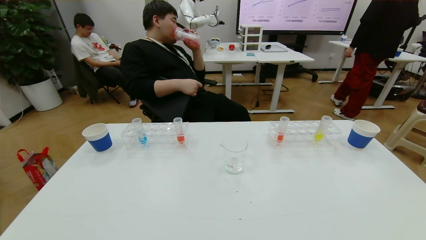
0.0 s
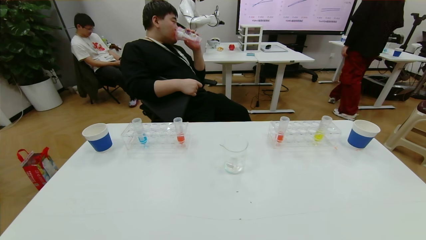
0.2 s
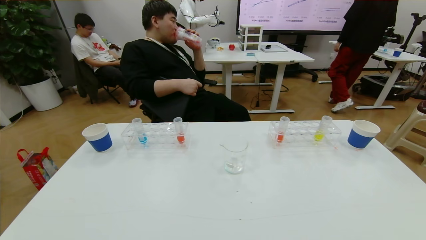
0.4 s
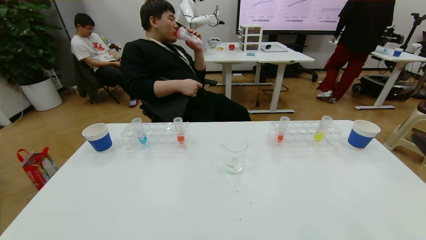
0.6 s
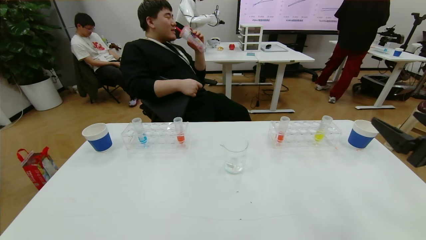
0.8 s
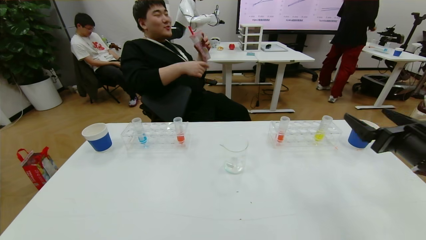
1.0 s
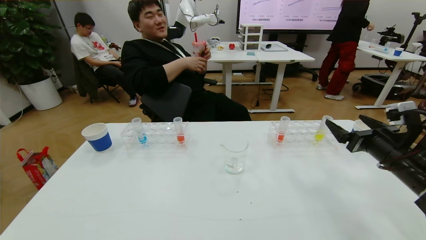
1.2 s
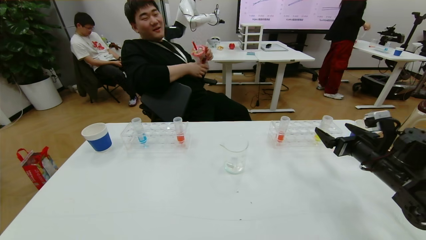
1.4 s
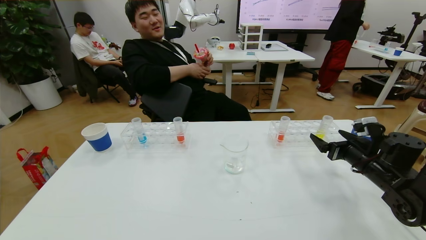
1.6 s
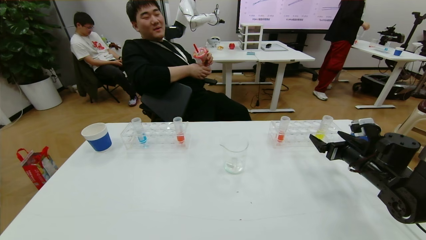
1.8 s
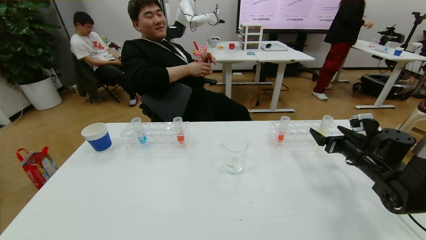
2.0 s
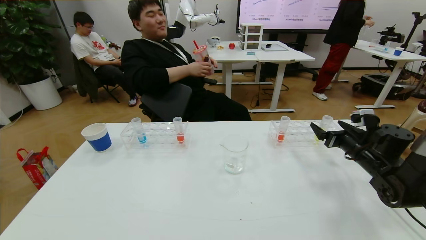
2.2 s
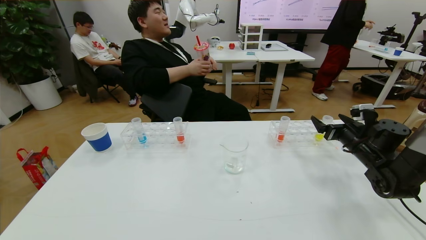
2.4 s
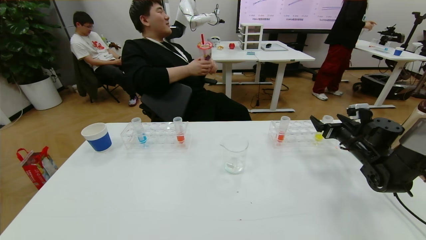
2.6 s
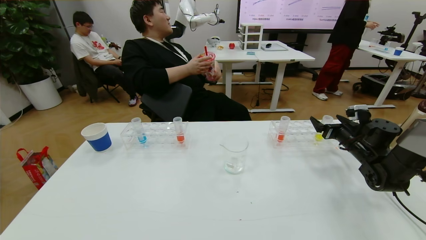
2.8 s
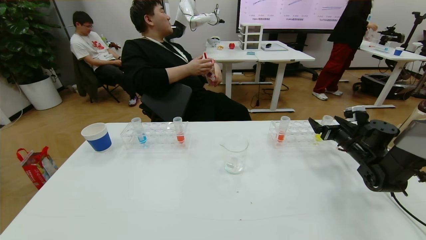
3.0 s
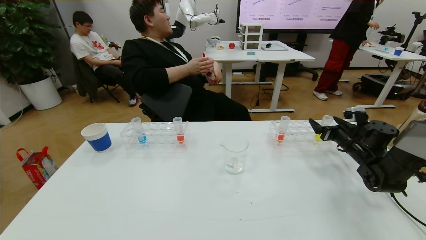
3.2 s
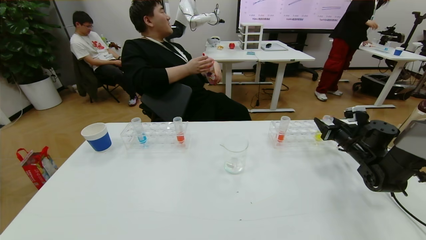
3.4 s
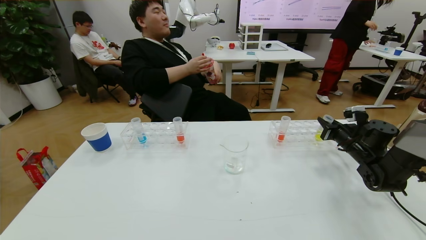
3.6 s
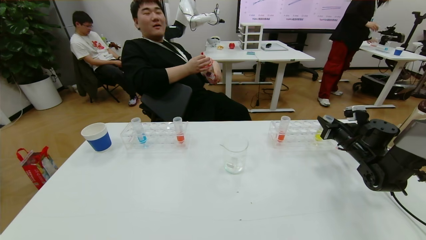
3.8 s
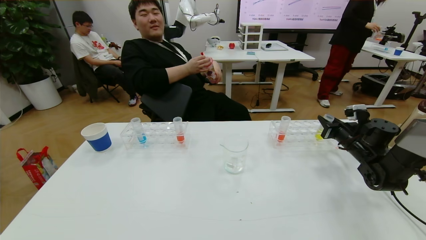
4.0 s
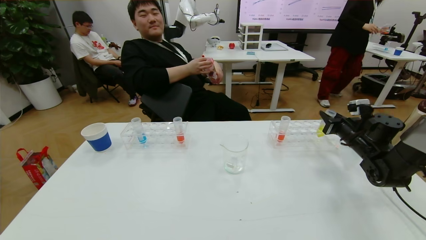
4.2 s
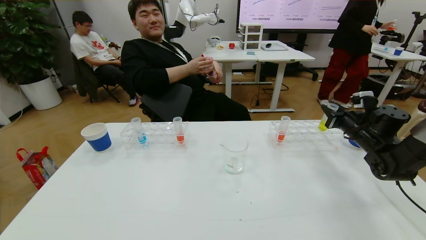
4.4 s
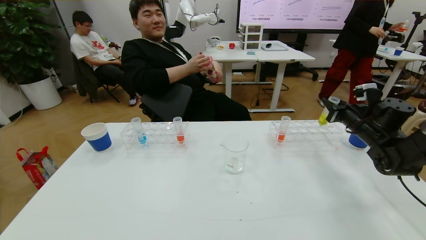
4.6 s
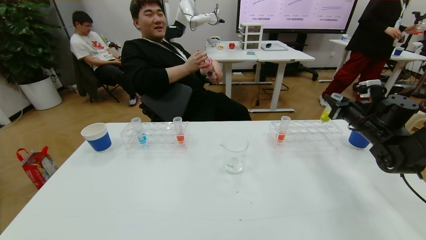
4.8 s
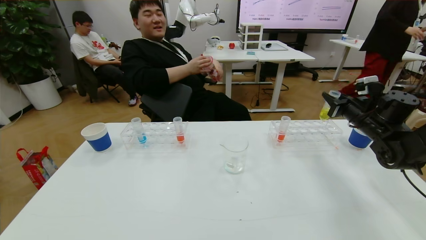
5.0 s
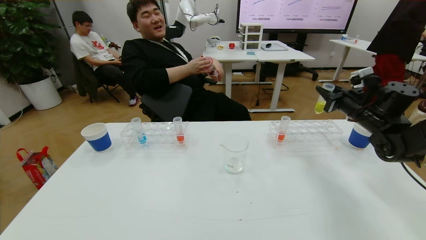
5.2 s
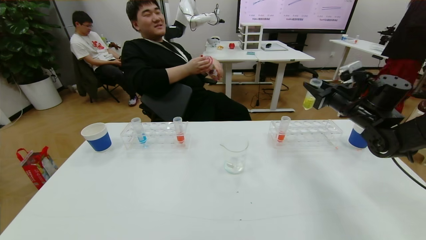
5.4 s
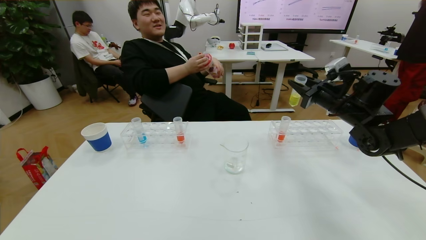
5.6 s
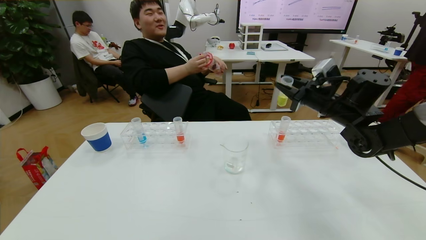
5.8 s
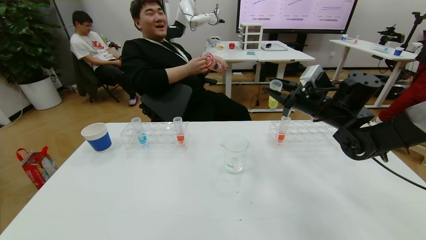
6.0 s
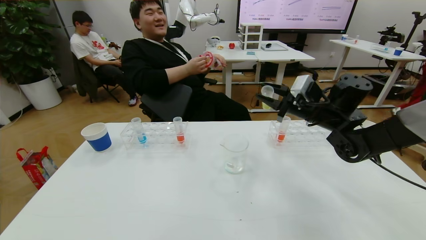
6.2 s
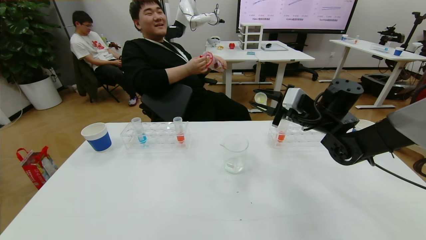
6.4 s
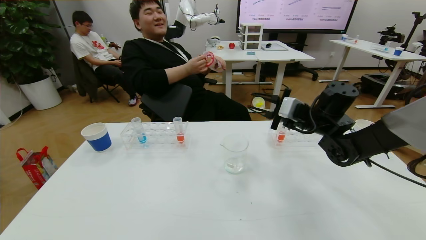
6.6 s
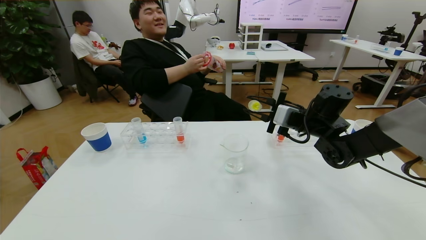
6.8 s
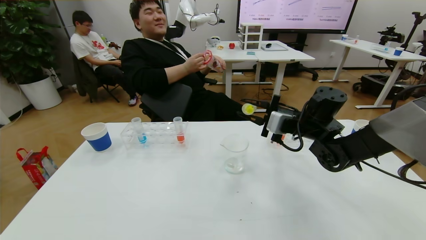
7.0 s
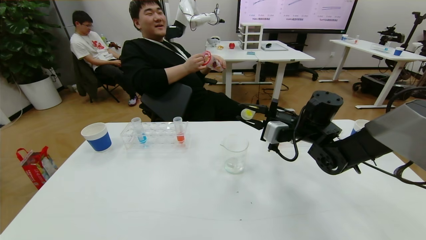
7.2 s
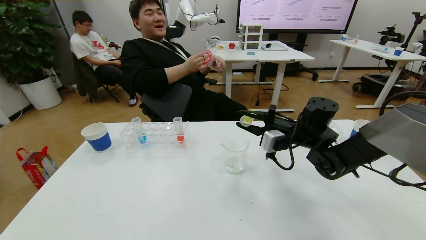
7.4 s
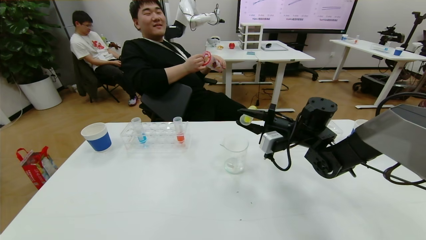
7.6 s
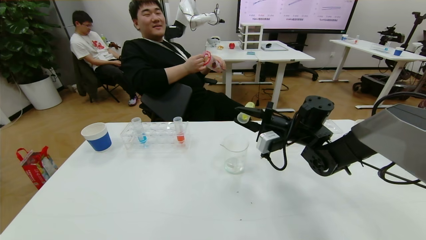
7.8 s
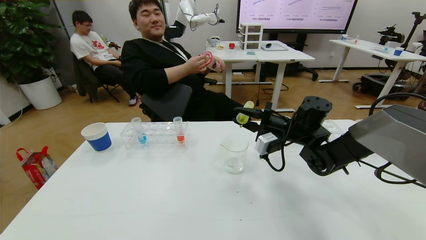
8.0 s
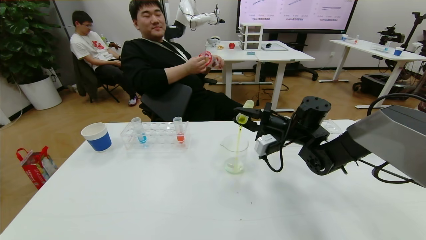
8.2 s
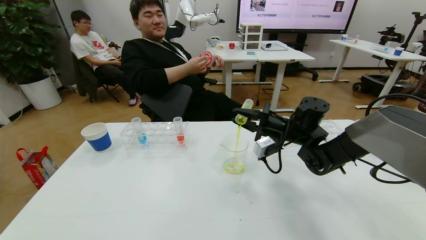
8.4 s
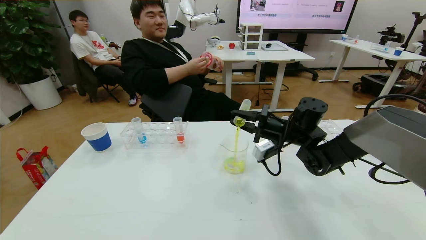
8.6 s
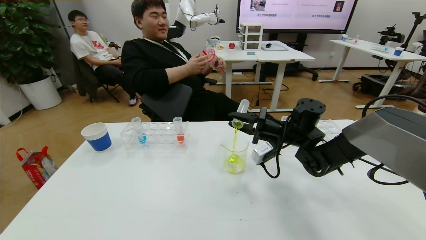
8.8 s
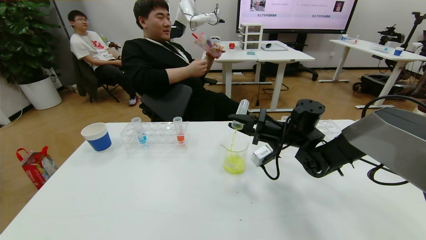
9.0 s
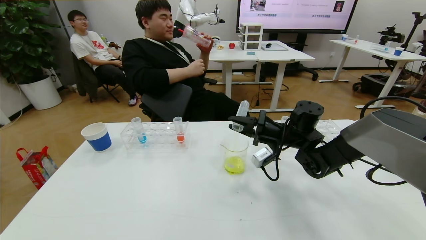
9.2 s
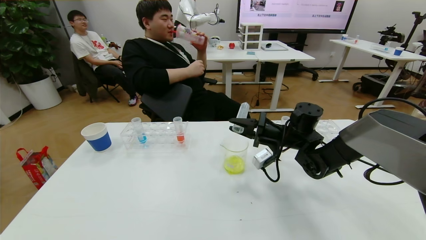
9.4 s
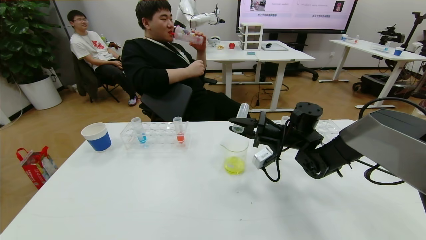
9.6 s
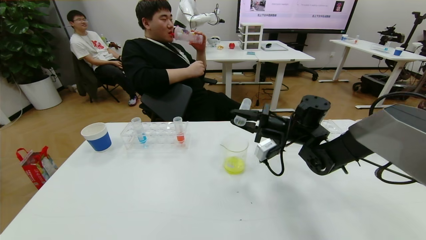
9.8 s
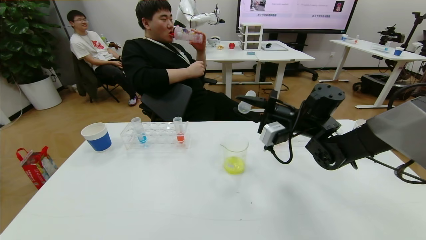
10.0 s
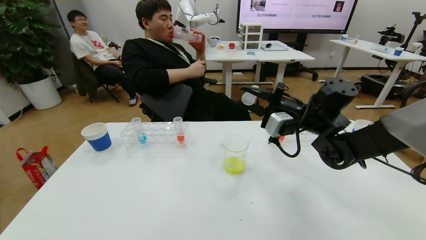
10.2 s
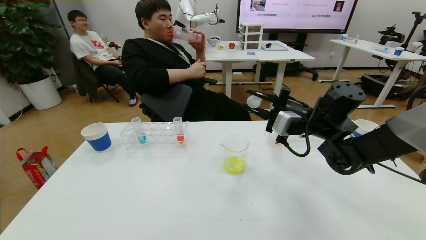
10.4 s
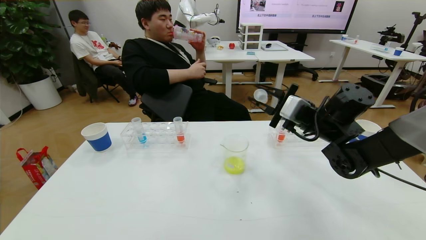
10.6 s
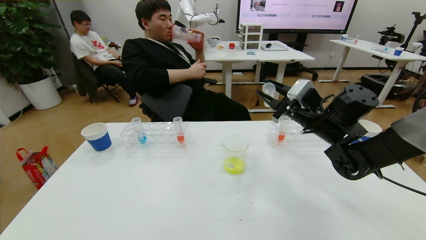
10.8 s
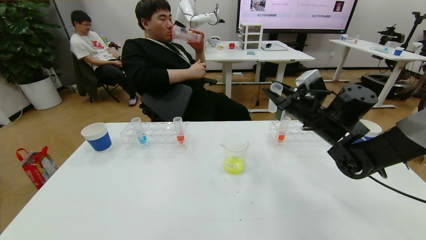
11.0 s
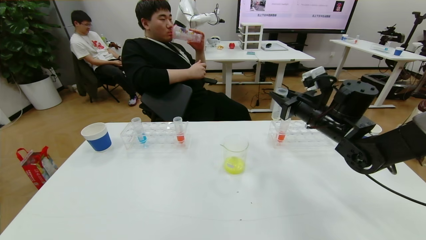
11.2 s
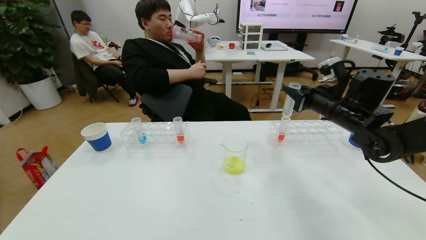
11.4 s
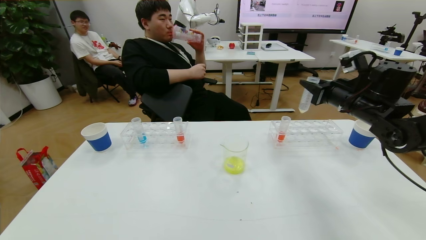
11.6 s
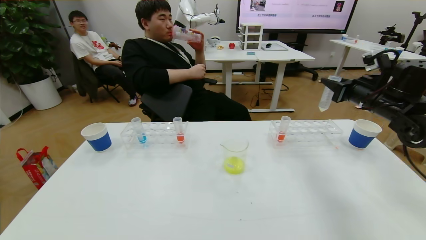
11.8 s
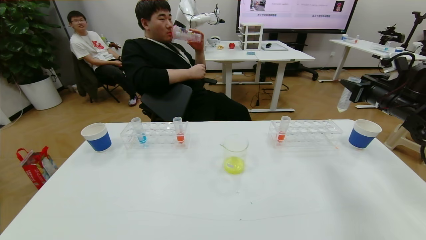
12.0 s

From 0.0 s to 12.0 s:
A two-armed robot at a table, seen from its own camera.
Task of the whole recording: pick up the test tube with yellow pigment and the test tube with blue pigment by grippers and pour them into the beaker.
From 0.0 s to 1.6 s: The right gripper shifts some 35 cm forward.
From 1.6 s to 3.0 s: The right gripper moves forward, some 10 cm.
From 3.0 s to 4.4 s: The right gripper heads upward, covering approximately 5 cm, and closes up.
From 4.4 s to 6.0 s: The right gripper shifts about 15 cm to the left and upward.
From 6.0 s to 7.6 s: The right gripper heads downward and to the left, covering some 10 cm.
From 9.0 s to 10.4 s: The right gripper shifts roughly 5 cm upward.
From 10.4 s to 12.0 s: The right gripper moves to the right, about 25 cm.

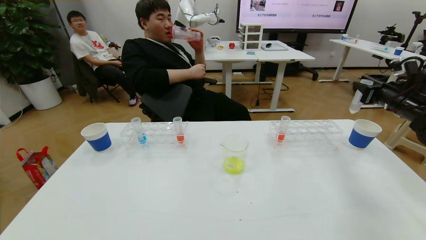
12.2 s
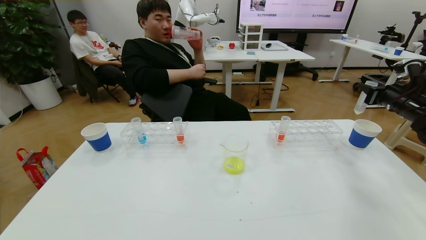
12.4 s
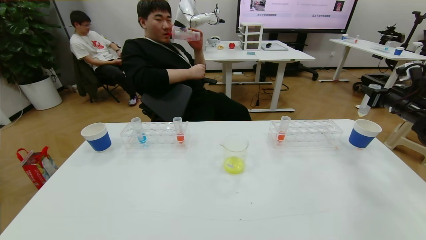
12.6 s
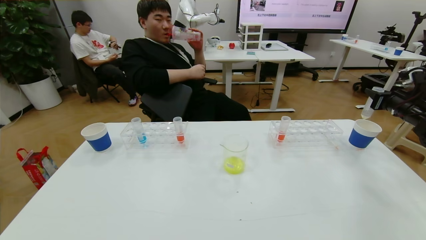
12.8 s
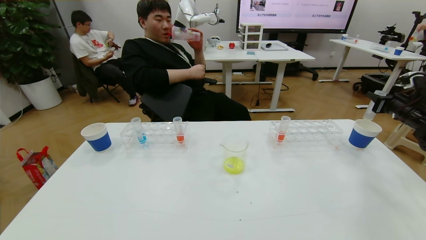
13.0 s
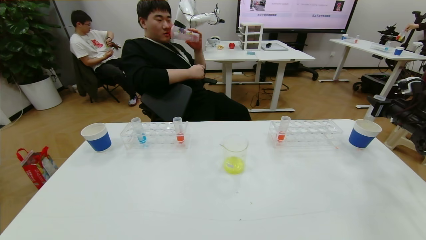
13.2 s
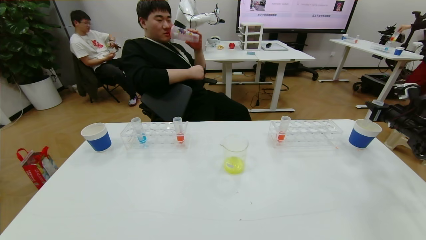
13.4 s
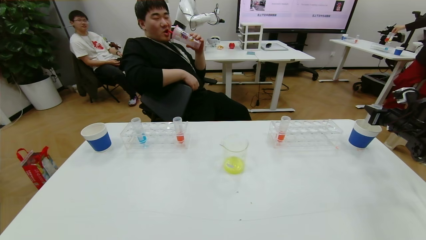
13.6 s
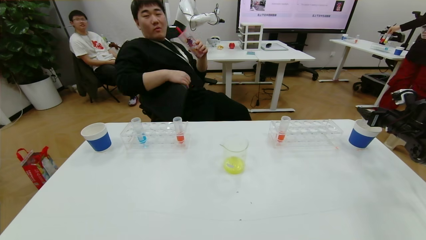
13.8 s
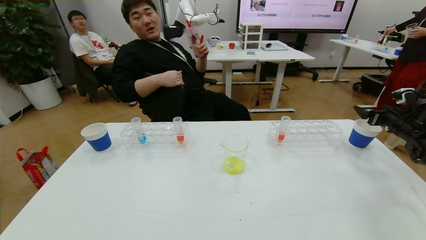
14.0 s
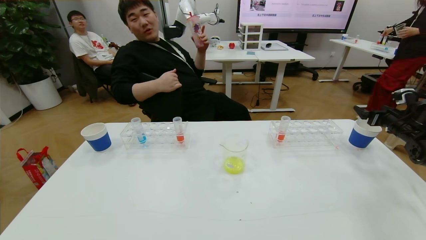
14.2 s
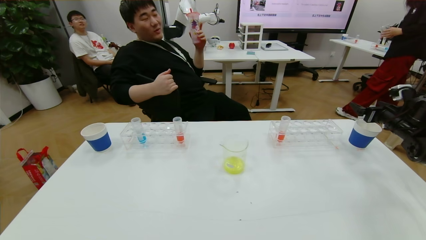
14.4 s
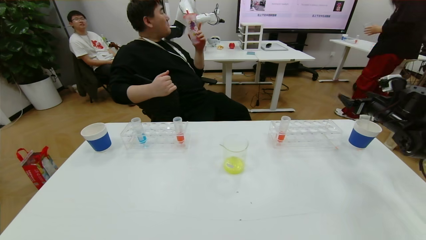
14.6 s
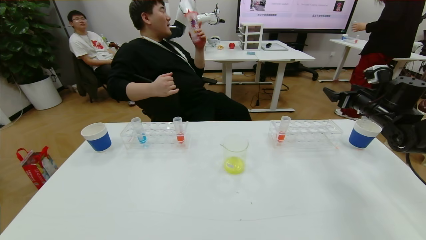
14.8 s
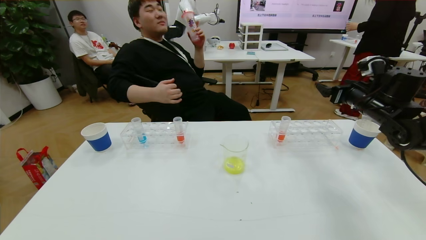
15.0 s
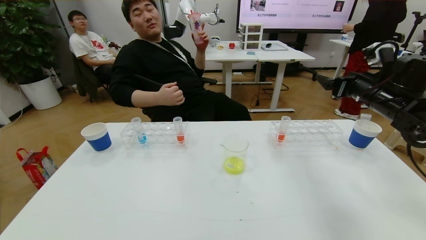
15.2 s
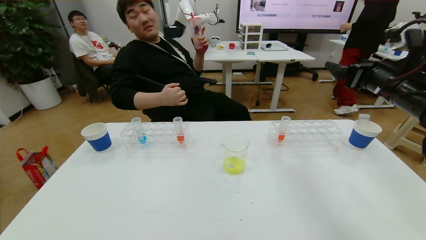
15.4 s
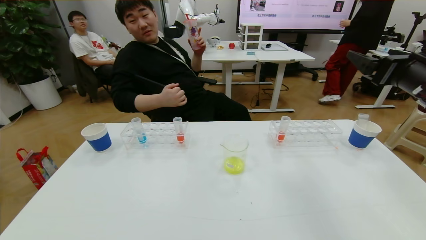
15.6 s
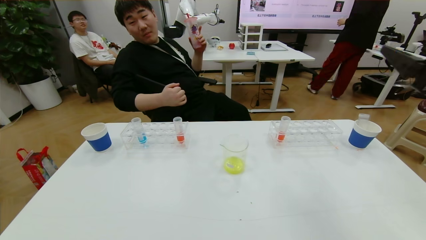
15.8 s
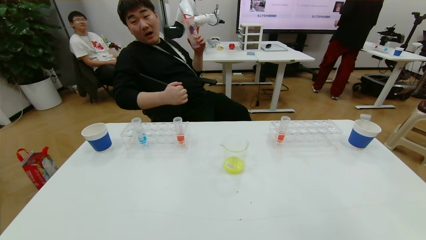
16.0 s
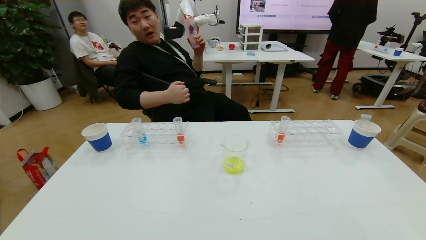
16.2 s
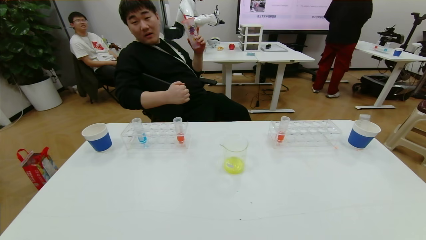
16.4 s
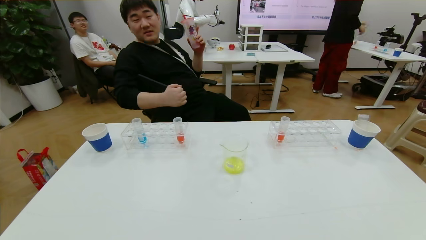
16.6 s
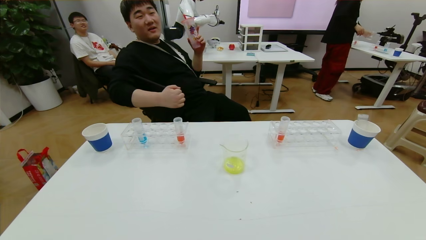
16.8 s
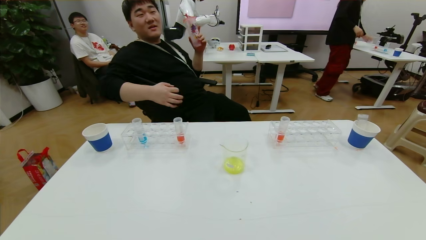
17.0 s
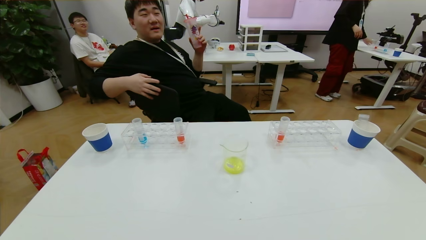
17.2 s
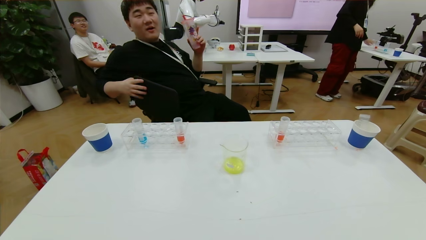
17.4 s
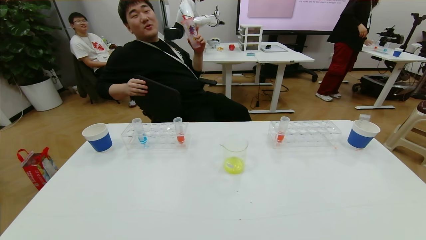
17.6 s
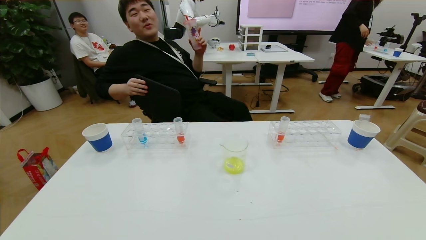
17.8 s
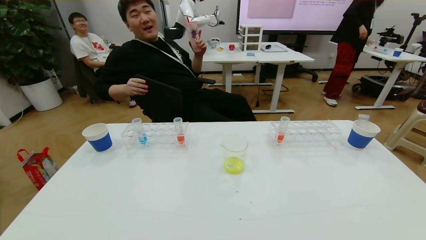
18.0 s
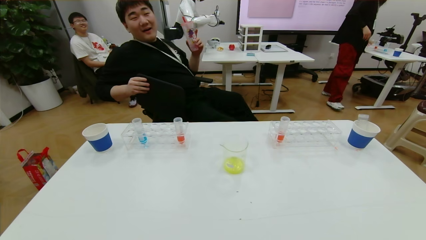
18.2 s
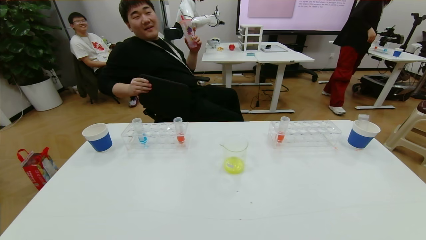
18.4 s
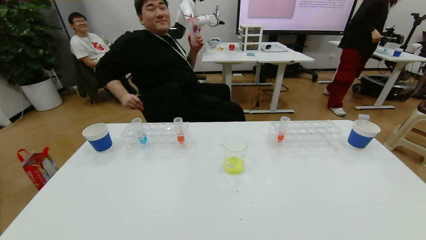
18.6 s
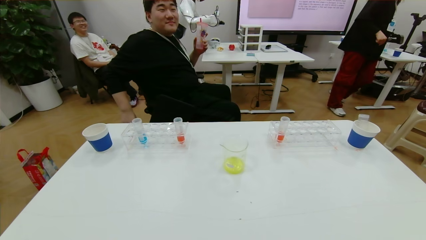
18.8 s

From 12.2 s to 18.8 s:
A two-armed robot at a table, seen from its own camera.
Task of the whole recording: pick up the test tube with yellow pigment and the test tube with blue pigment by grippers and pour them into the beaker.
Step, from 12.2 s to 18.4 s: Pour the yellow reagent into the graduated cylinder and place the test tube into the paper cup.
From 12.2 s to 13.8 s: The right gripper moves downward and to the right, about 10 cm, and opens up.
From 13.8 s to 15.4 s: The right gripper travels to the left, upward and backward by approximately 30 cm.
From 15.4 s to 17.2 s: The right gripper shifts approximately 35 cm backward and downward.
From 17.2 s to 18.8 s: The left gripper moves upward, approximately 10 cm; the right gripper travels downward by roughly 5 cm.
